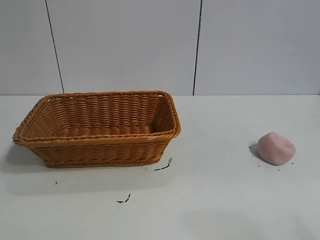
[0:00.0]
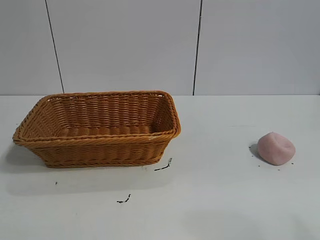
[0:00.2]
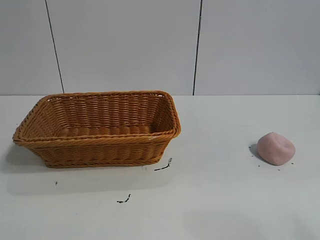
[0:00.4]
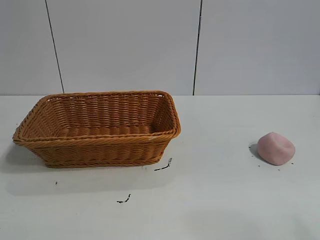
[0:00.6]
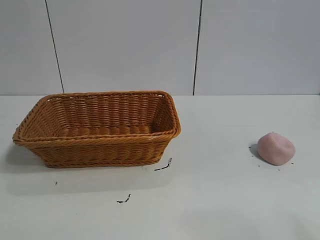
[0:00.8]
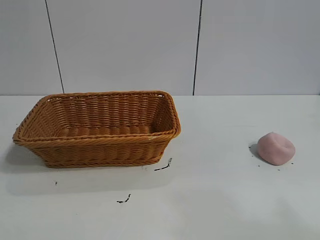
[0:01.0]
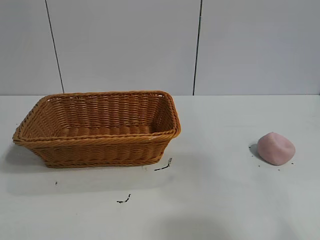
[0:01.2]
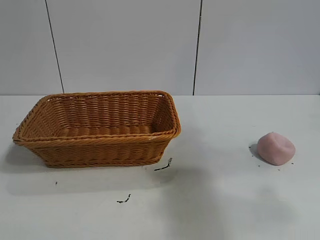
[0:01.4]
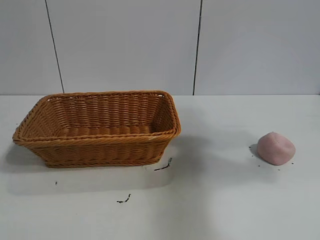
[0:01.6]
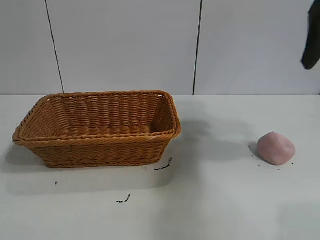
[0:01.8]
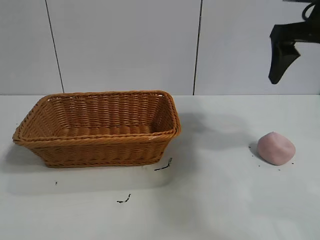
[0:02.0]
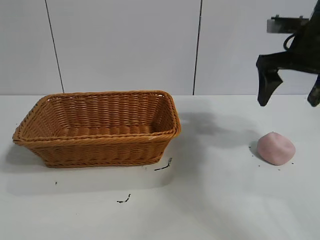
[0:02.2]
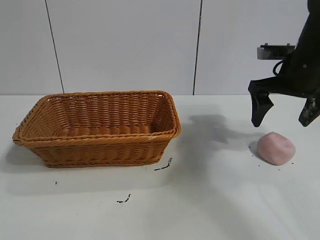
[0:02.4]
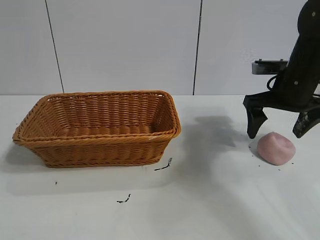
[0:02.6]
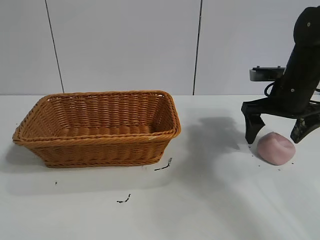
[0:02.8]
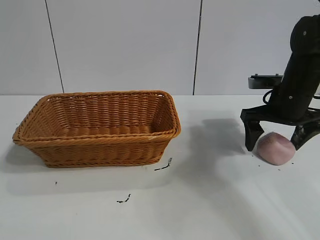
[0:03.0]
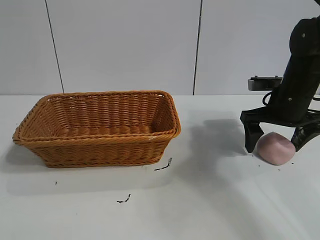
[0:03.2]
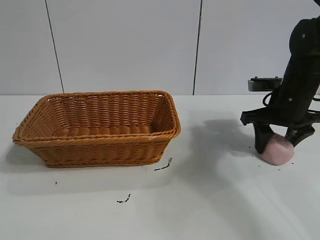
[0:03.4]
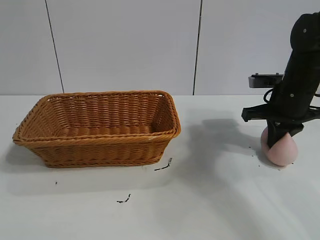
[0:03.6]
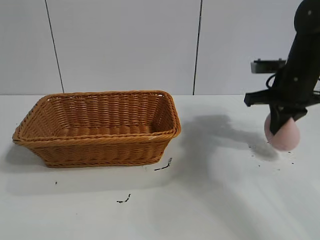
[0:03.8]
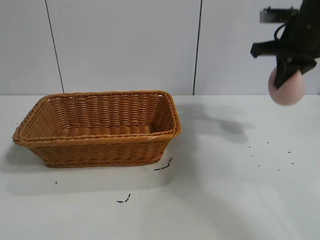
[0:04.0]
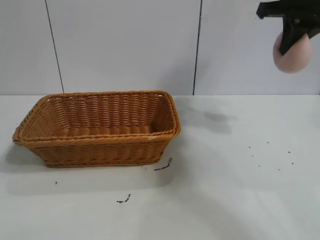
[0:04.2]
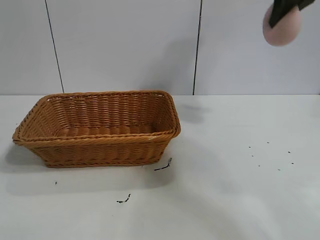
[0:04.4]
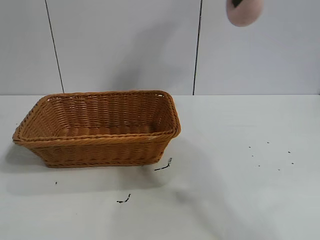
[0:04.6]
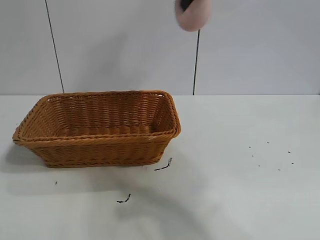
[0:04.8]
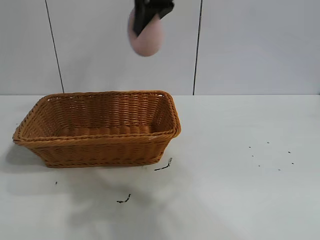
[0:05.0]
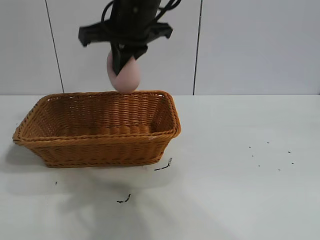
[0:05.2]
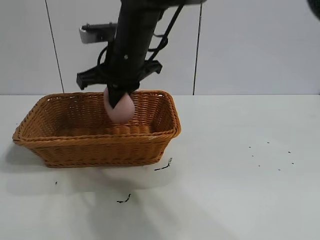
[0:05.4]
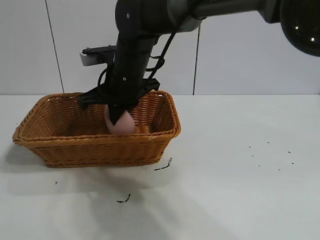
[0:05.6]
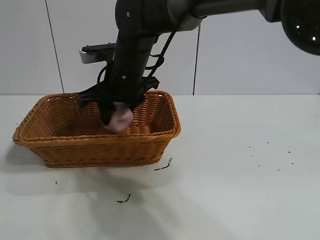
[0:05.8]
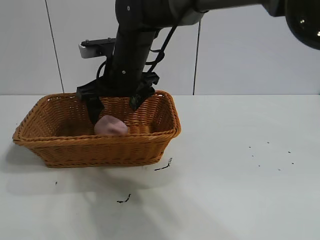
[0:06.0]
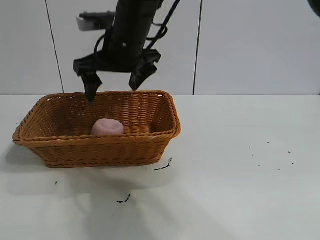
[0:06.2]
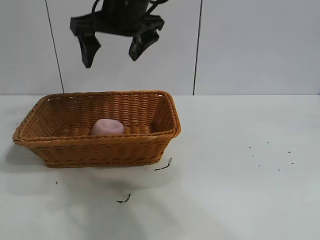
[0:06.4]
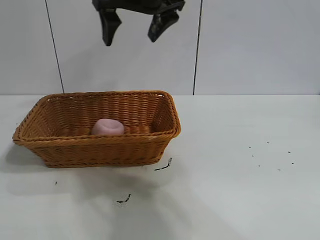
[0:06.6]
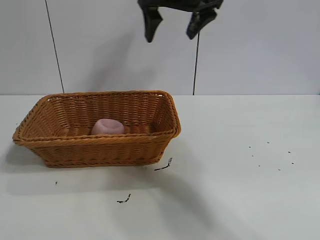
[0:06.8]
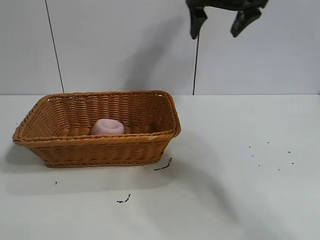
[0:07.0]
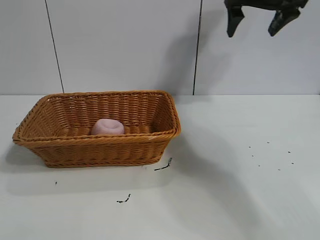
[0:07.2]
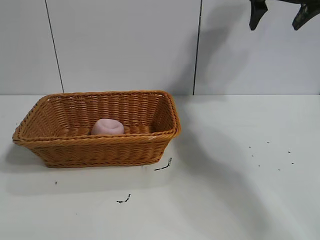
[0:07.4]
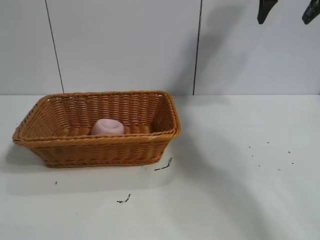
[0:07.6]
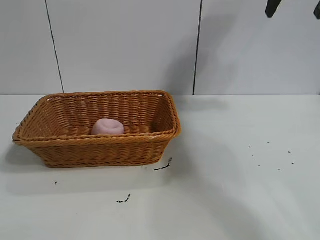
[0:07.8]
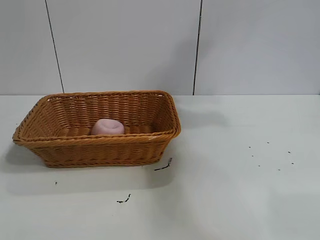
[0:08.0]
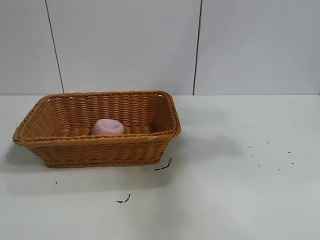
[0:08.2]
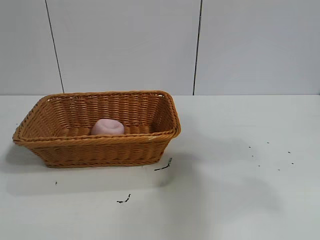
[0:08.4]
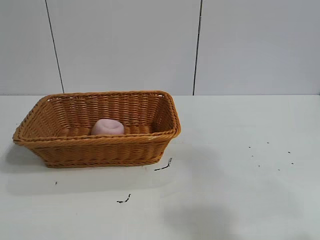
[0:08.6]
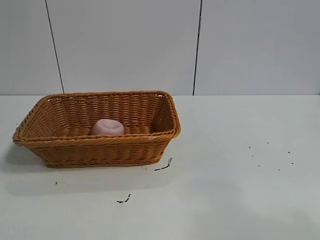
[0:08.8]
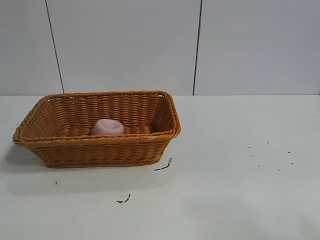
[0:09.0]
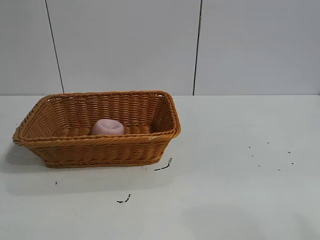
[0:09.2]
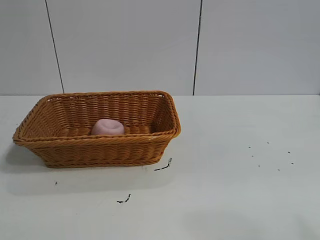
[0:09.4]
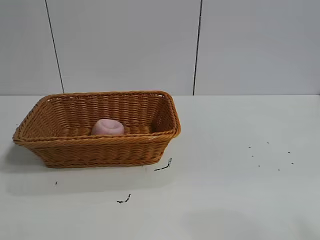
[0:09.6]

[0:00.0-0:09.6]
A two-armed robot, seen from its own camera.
Task of the whole recording: pick up the peach and put it into the basket.
Step, 0:00.8 to 0:03.4: Grasp the peach with right gripper.
Step, 0:03.6 to 0:06.0: Place the peach in the basket with right gripper.

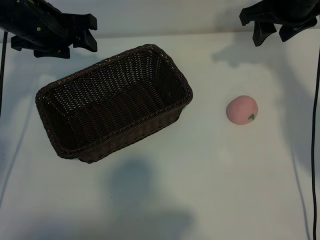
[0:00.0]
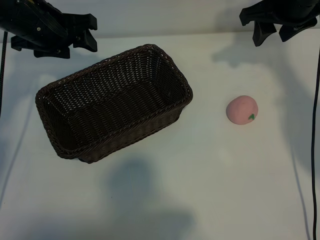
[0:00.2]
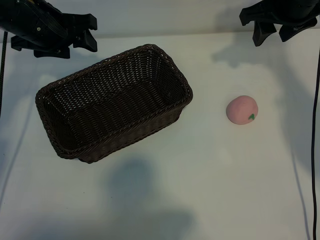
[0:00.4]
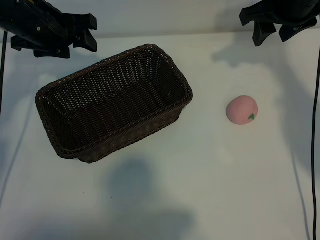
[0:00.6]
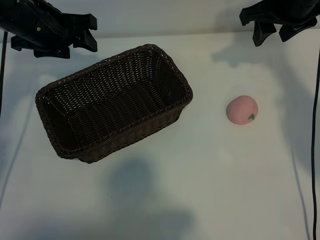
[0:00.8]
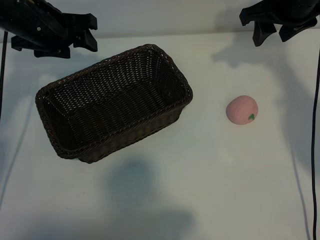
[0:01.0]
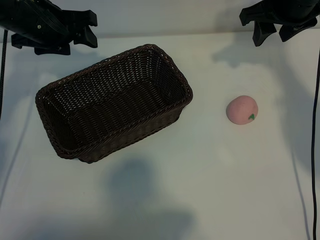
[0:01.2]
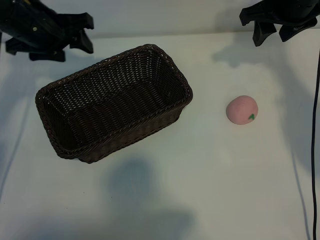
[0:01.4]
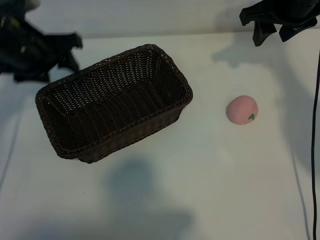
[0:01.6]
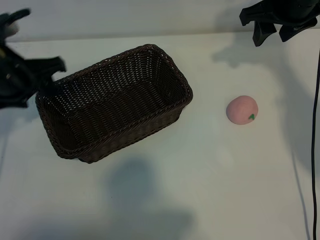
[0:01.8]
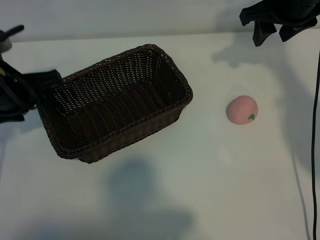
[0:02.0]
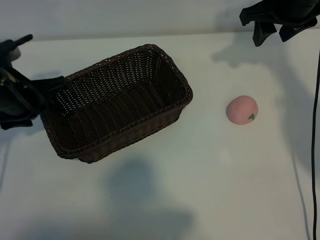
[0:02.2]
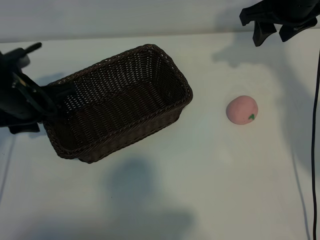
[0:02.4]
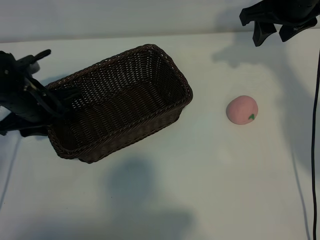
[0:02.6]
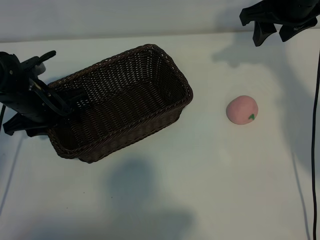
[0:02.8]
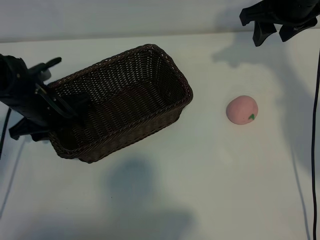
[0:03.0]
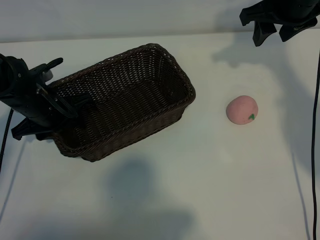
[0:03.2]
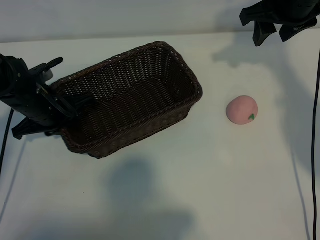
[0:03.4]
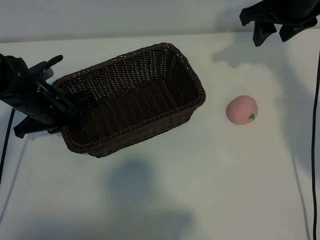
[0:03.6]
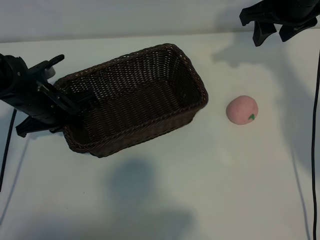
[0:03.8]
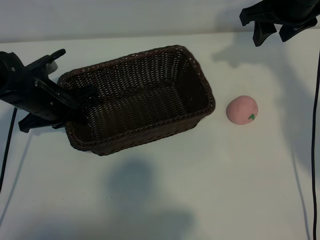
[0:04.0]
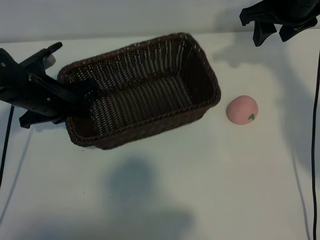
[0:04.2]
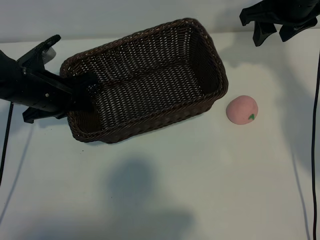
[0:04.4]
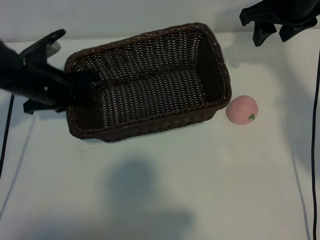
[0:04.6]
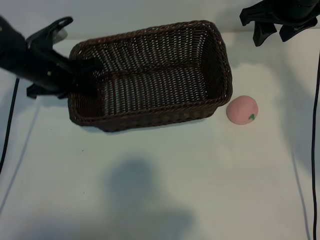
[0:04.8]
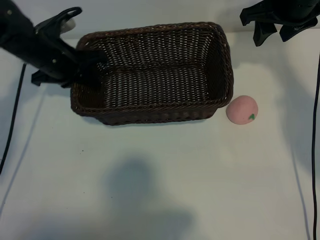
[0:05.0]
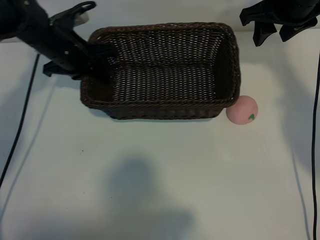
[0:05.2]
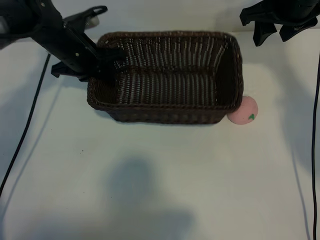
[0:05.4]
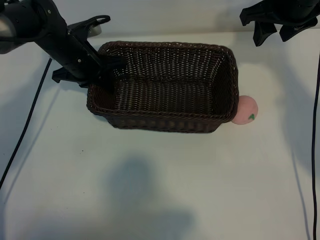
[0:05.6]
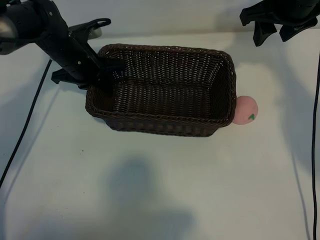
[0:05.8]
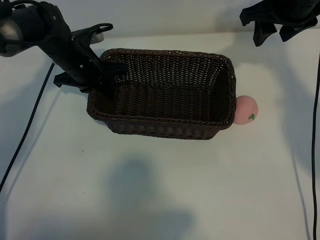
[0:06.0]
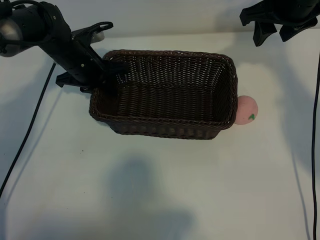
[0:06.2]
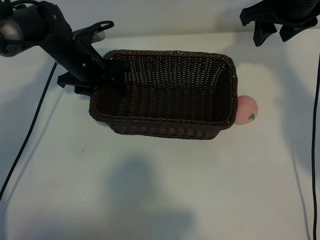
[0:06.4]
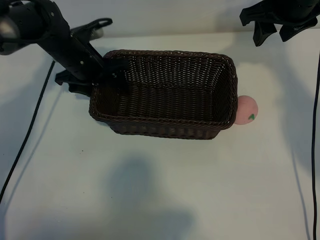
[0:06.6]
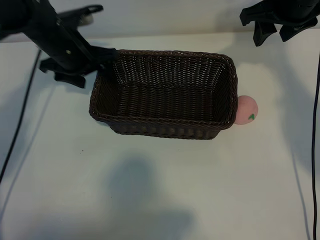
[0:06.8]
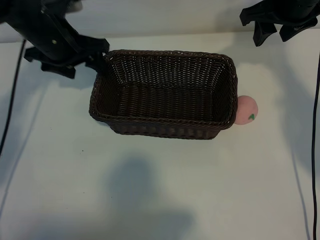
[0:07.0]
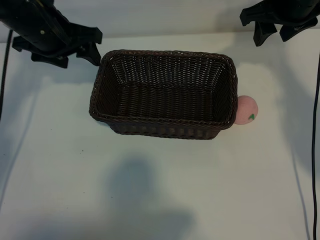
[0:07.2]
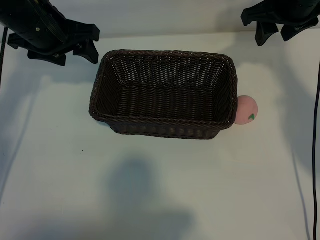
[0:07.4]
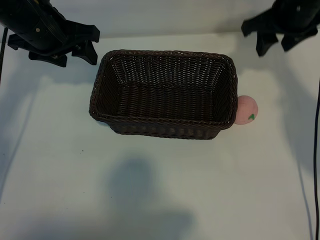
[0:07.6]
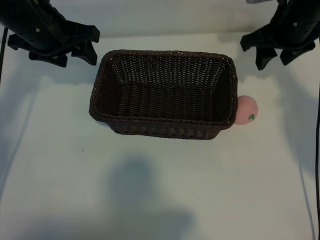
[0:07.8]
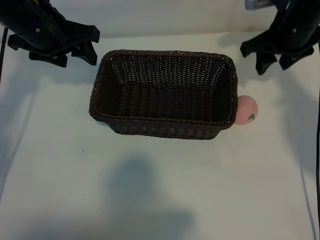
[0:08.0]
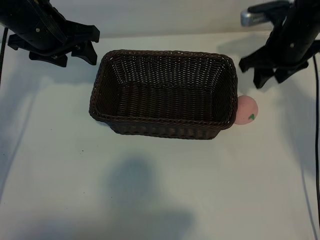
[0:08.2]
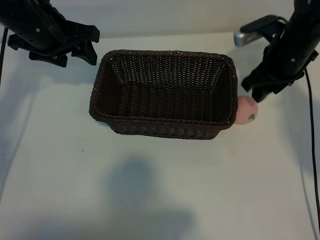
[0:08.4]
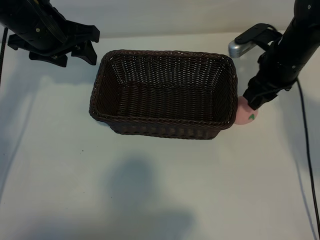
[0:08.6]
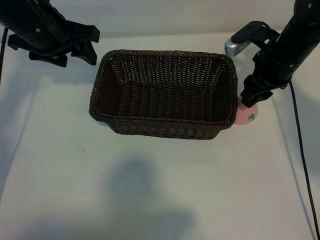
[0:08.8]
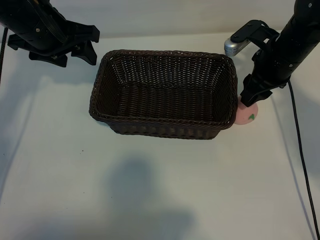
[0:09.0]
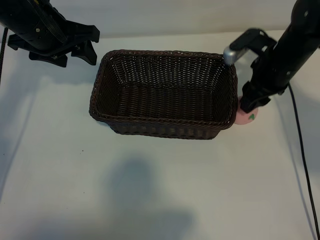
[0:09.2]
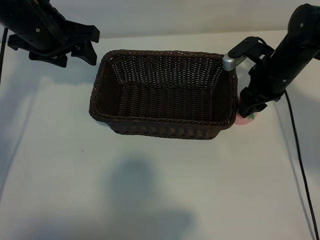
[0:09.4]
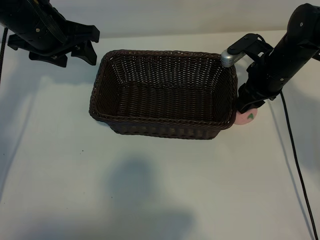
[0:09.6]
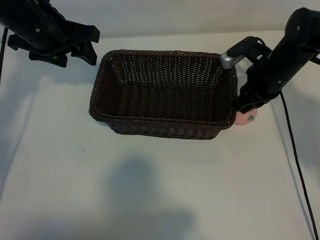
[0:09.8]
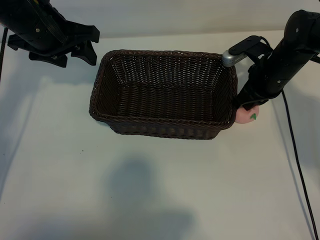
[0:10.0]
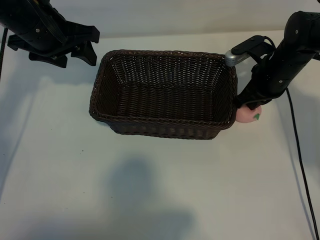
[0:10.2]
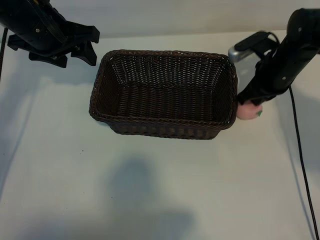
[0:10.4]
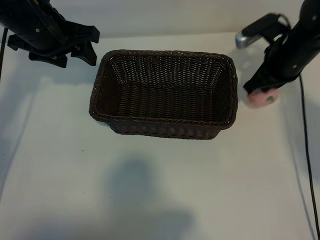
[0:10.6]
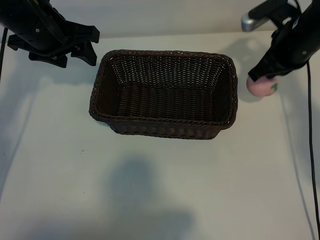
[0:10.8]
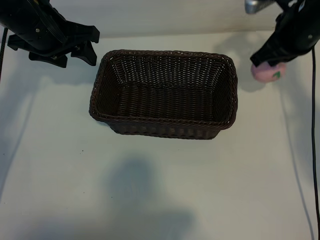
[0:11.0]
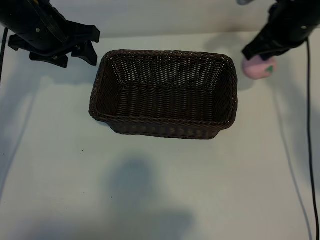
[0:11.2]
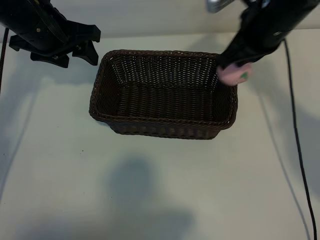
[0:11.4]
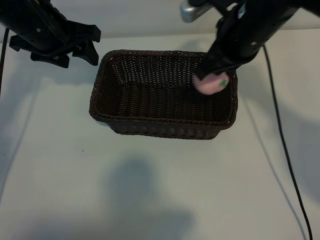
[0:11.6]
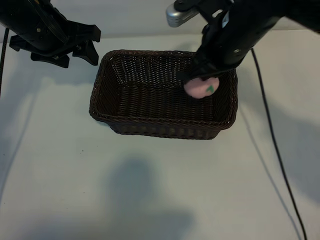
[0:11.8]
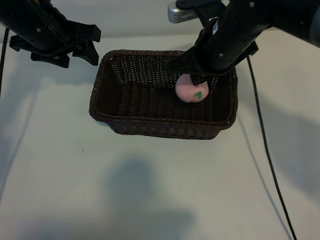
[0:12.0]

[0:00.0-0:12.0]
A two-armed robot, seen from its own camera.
Task of the whole recording: pick up the peach and put it into the basket.
Step, 0:01.2 to 0:03.4: Grasp the basket with left gripper.
Step, 0:03.6 to 0:06.6: Place the basket in the center of view with left gripper.
Step, 0:07.0 to 0:10.0: Grasp the peach with right gripper.

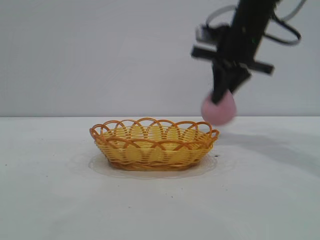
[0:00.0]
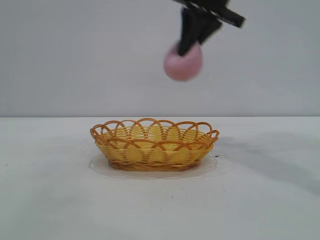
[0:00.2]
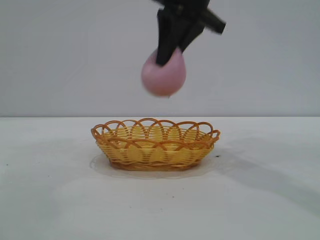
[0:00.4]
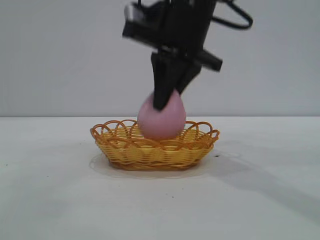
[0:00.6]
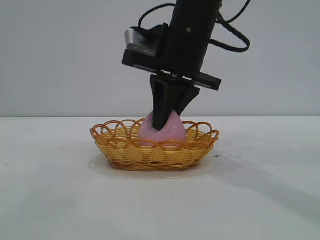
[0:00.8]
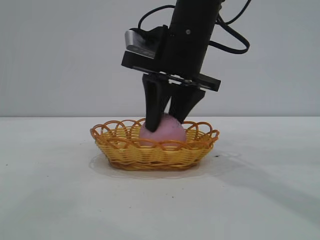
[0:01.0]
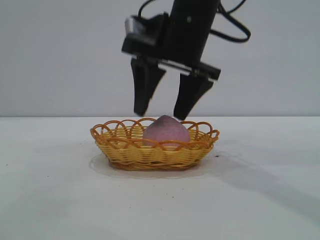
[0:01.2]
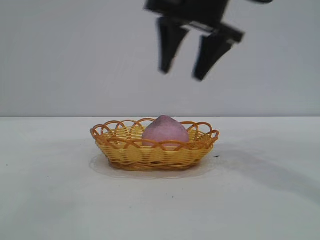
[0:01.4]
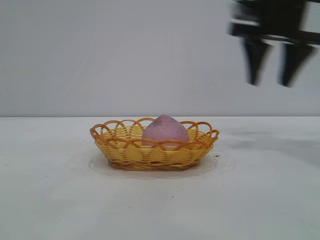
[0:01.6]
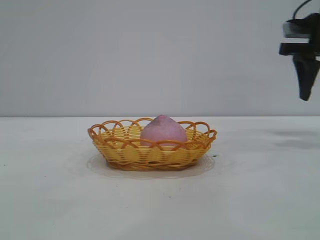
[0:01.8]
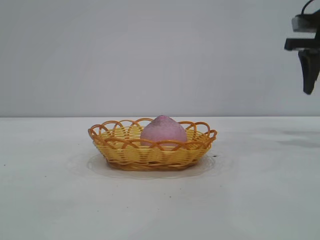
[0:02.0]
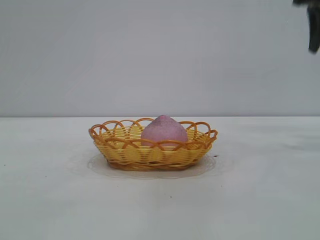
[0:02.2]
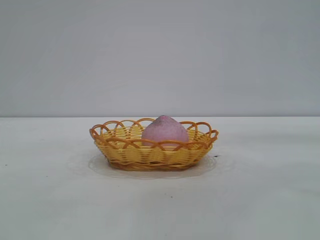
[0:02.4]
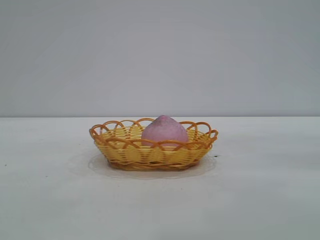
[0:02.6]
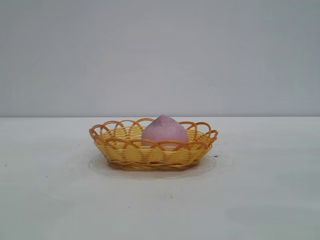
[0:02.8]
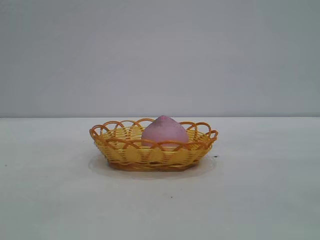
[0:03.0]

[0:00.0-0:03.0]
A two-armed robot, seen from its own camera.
Task of the whole recording: pick up the peach and put it into the basket.
Step, 0:00.2 to 0:01.2: place the peach into the basket.
